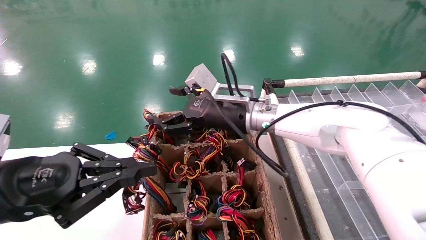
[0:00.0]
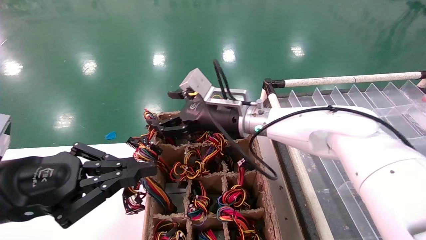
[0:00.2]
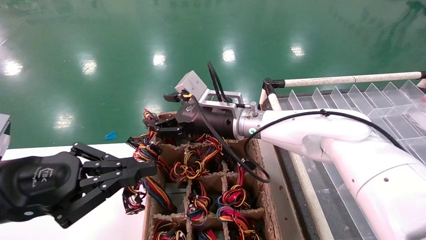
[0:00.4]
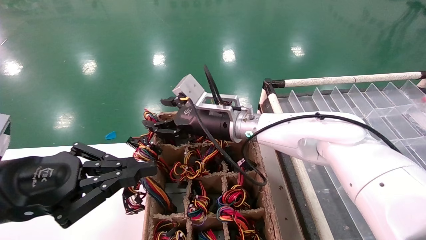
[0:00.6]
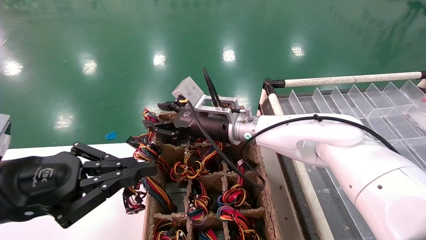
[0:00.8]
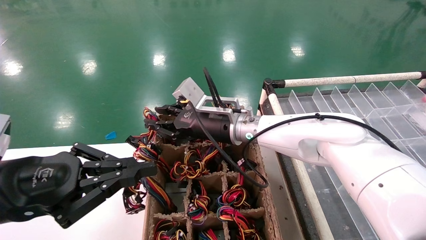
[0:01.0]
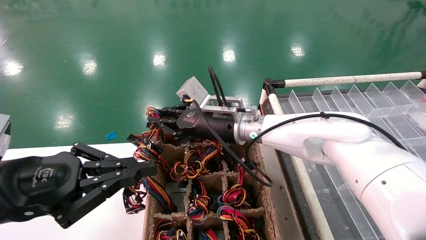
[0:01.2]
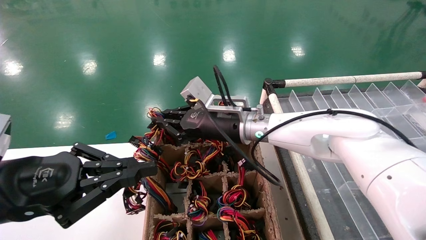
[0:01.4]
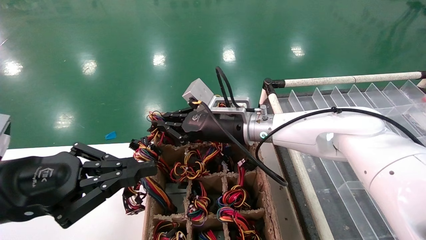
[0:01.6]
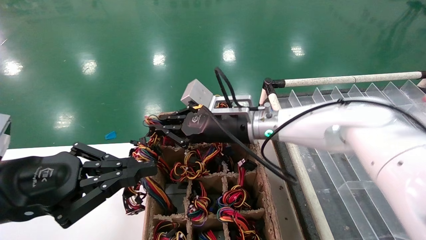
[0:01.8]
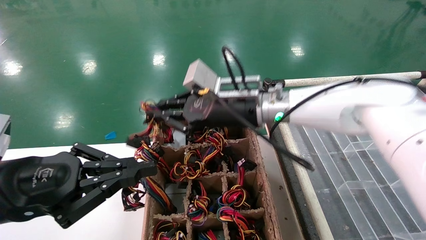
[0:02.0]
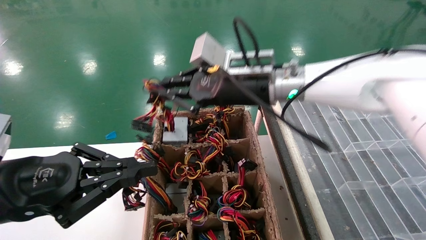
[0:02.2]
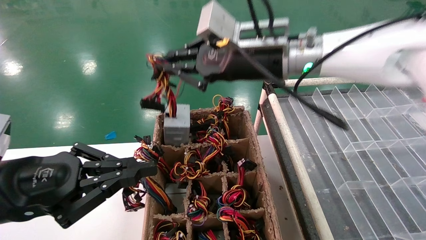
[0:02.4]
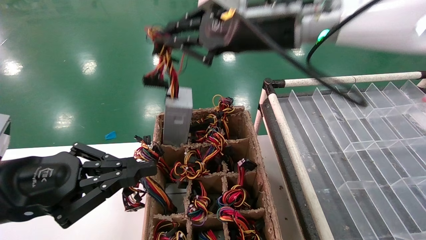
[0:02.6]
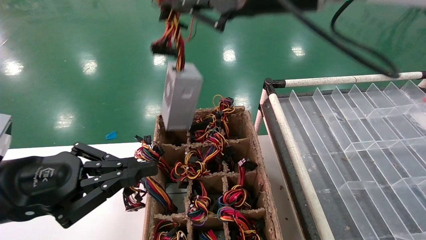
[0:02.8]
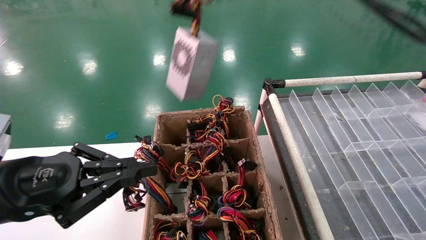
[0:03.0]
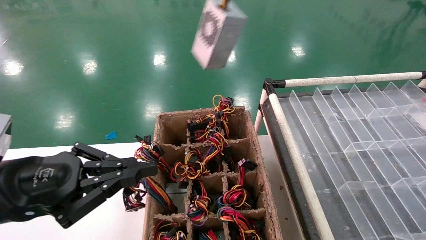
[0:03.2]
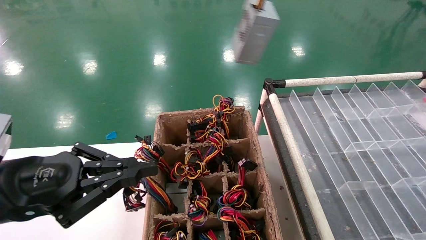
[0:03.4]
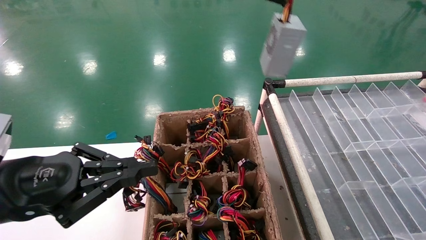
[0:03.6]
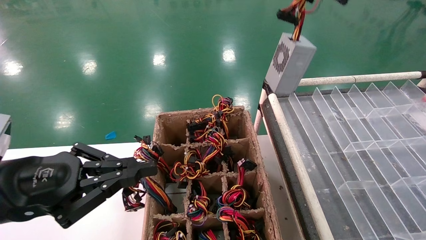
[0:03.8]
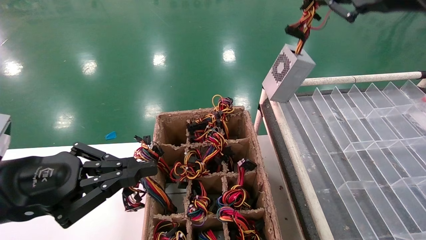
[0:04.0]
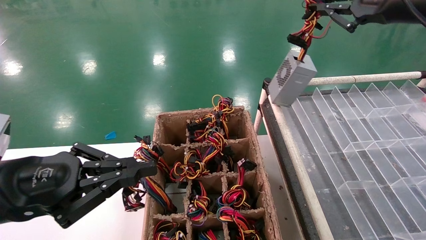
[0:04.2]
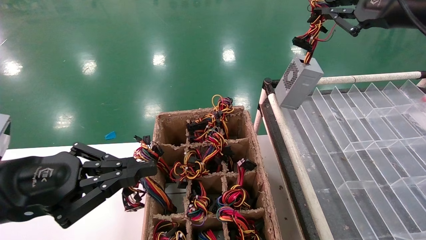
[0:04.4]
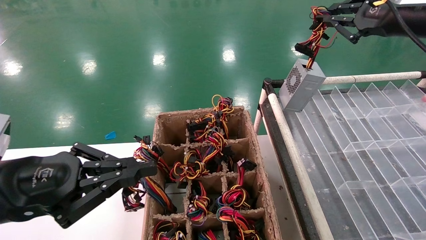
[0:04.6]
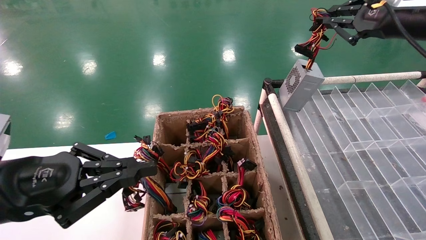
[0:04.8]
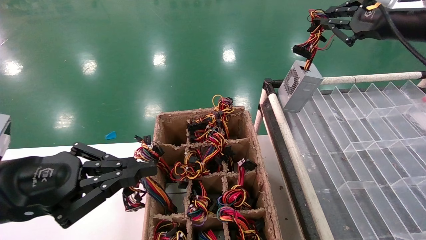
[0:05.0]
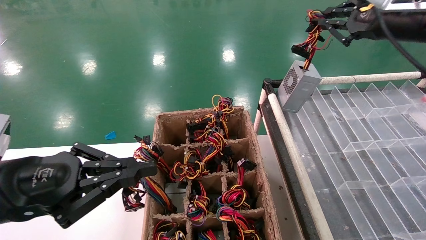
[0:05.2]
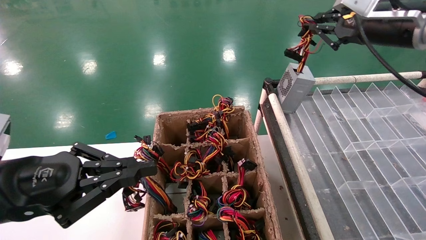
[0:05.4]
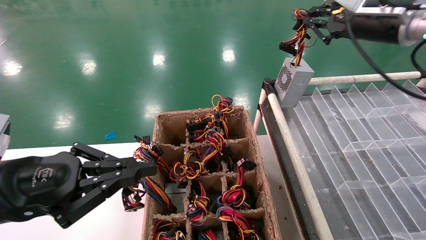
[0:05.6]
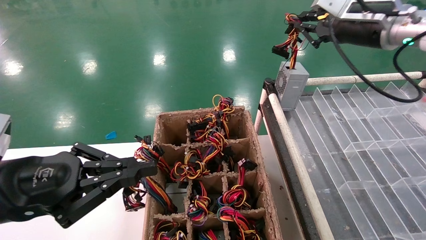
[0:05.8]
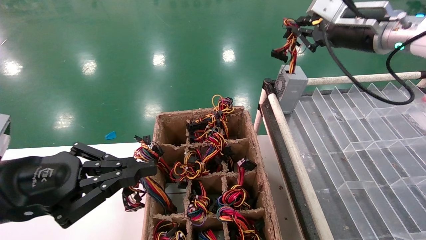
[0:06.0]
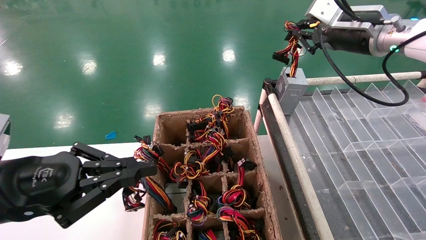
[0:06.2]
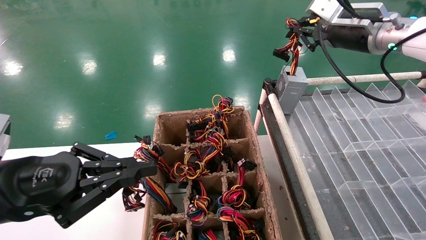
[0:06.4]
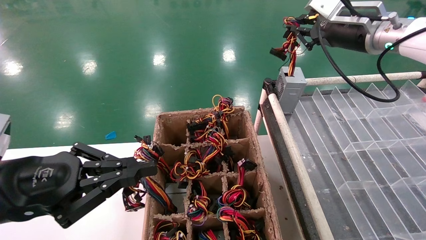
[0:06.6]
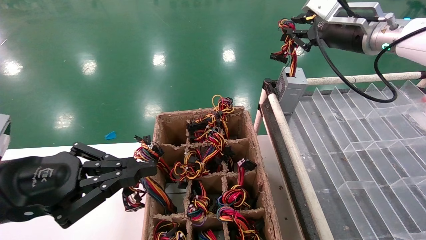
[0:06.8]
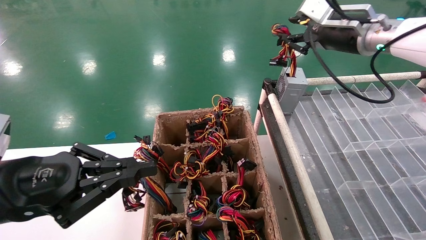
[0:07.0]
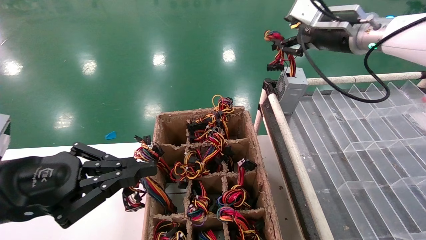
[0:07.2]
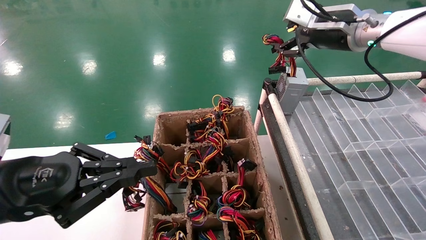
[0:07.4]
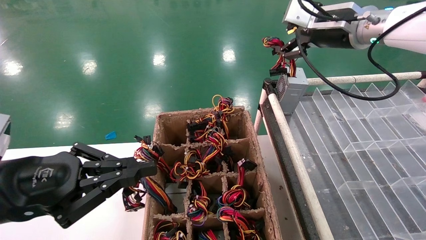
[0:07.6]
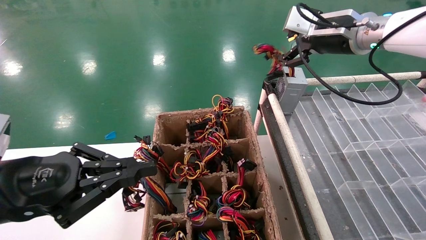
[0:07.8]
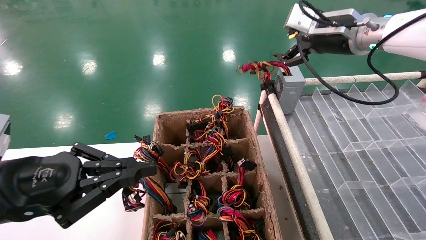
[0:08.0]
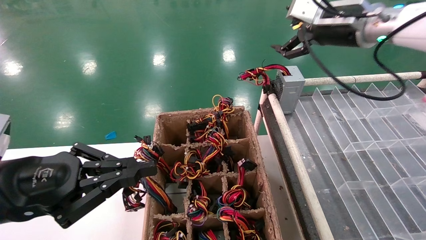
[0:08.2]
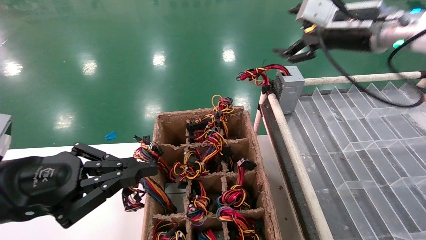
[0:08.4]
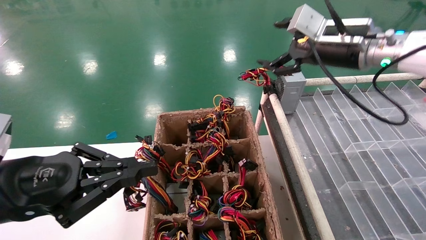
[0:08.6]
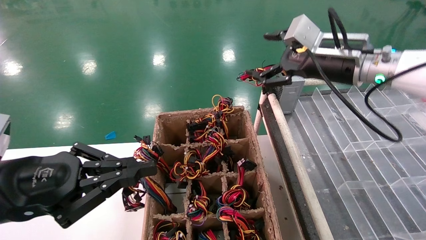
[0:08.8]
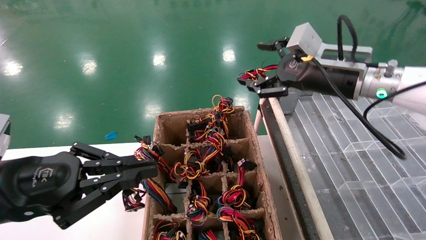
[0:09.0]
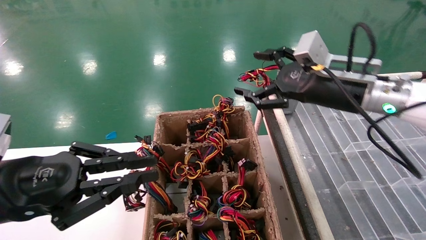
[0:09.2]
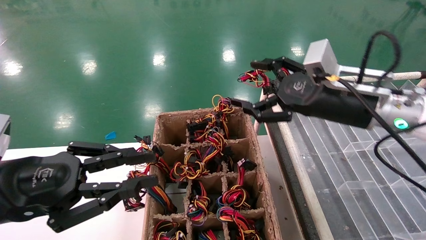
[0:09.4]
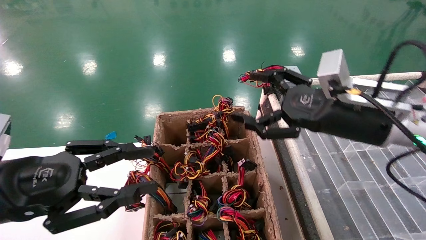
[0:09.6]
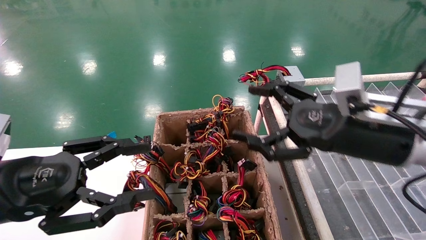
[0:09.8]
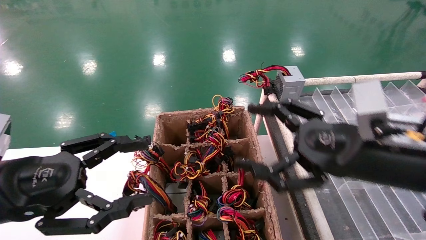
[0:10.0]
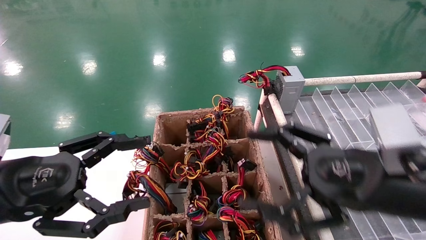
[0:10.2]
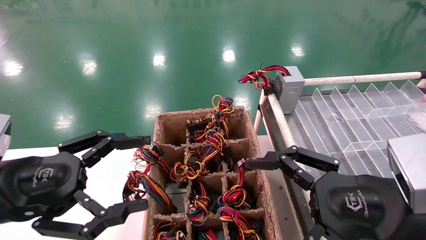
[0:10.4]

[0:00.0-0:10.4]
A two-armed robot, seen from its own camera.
Step, 0:00.0 to 0:01.4: Grab the main unit power supply from the containment box.
Step, 0:01.6 to 0:08.0: Place the main unit power supply in the designated area.
0:00.0 to 0:01.4: The right gripper closes its fingers.
0:01.4 to 0:03.0: The right gripper travels upward by roughly 30 cm.
0:03.0 to 0:04.4: The right gripper goes roughly 20 cm to the right.
0:04.4 to 0:06.0: The right gripper moves forward, approximately 5 cm.
0:06.0 to 0:07.4: The right gripper opens up.
0:07.4 to 0:09.0: The right gripper moves downward, some 10 cm, and opens.
0:09.0 to 0:10.4: The left gripper opens its fingers. Meanwhile the right gripper travels backward and downward by about 20 cm.

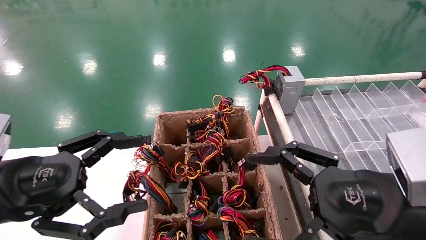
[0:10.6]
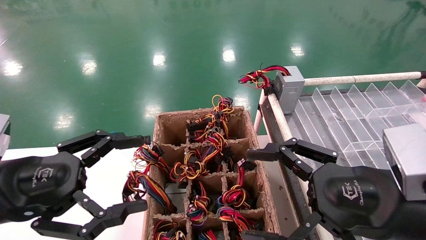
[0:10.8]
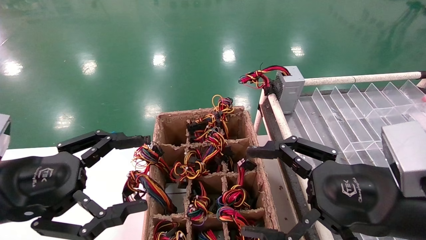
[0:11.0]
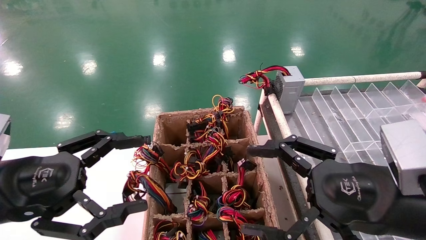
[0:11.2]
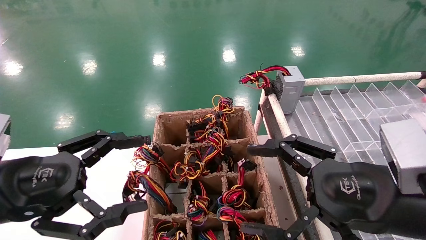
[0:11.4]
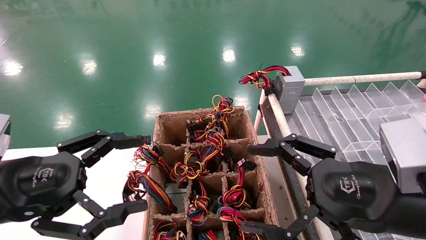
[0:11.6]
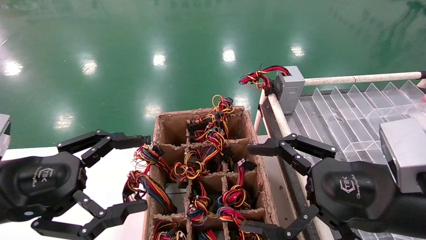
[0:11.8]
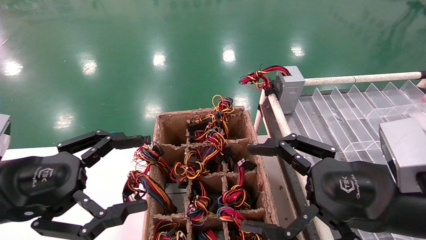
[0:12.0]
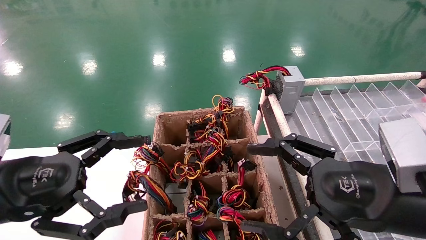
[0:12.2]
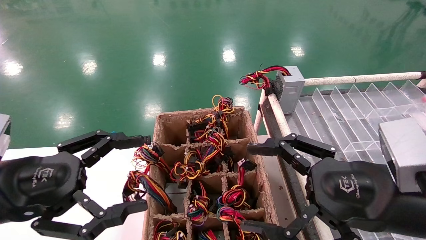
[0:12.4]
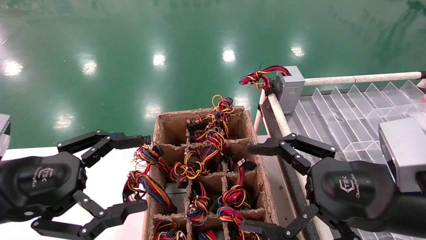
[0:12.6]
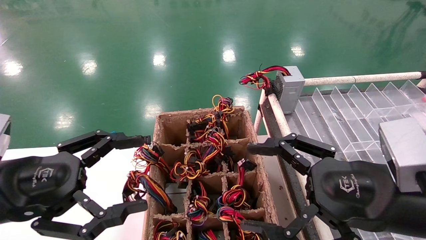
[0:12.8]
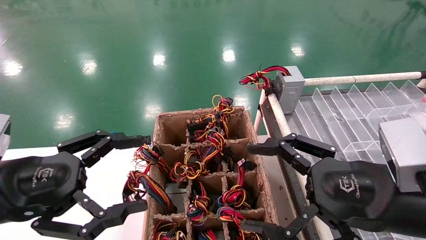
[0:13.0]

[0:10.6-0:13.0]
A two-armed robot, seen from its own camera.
0:10.6 to 0:13.0: Both grippers stay put.

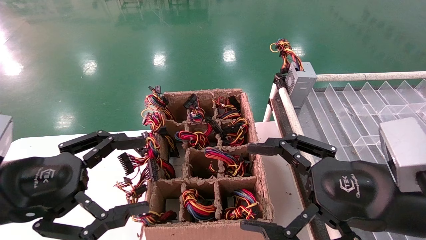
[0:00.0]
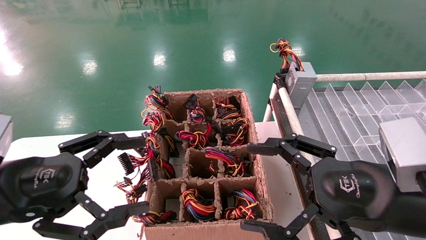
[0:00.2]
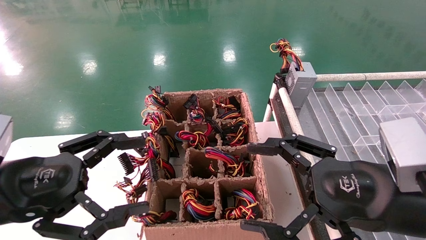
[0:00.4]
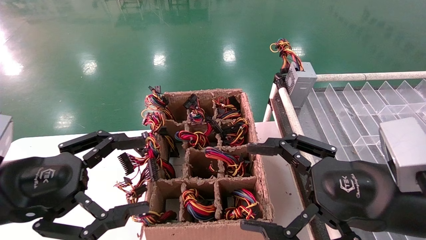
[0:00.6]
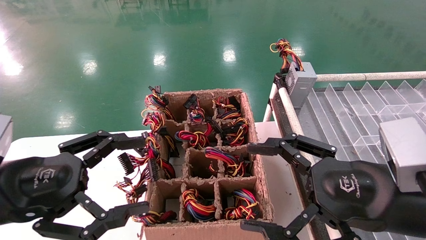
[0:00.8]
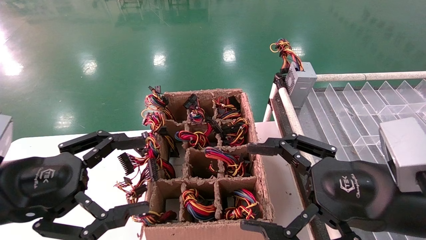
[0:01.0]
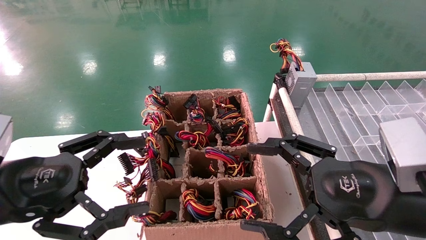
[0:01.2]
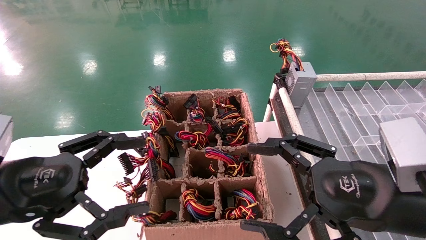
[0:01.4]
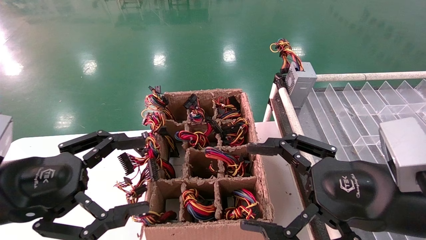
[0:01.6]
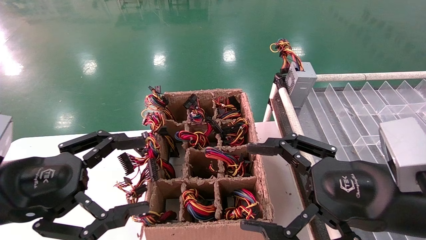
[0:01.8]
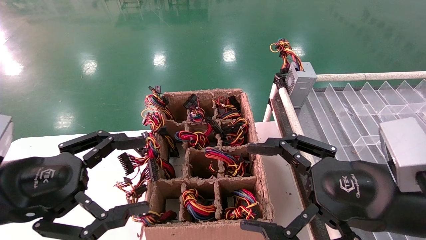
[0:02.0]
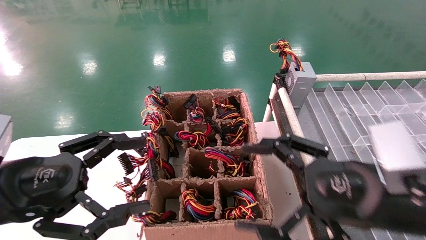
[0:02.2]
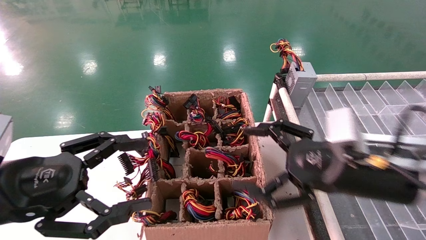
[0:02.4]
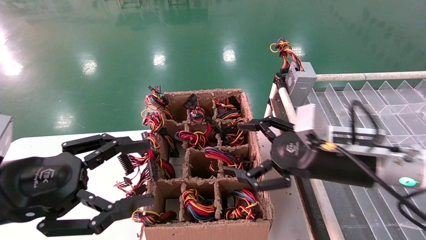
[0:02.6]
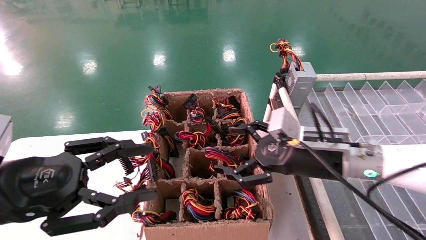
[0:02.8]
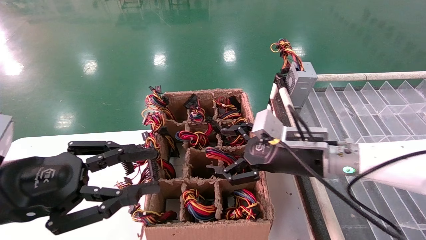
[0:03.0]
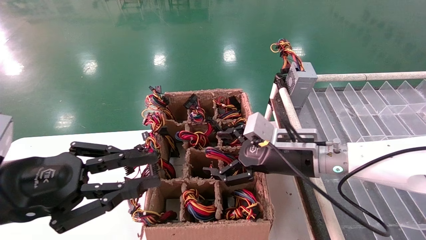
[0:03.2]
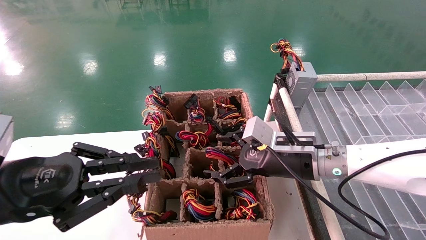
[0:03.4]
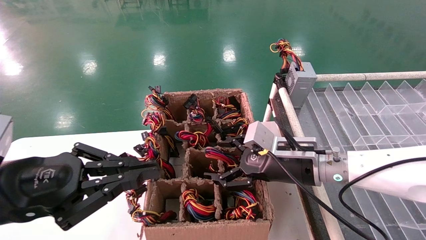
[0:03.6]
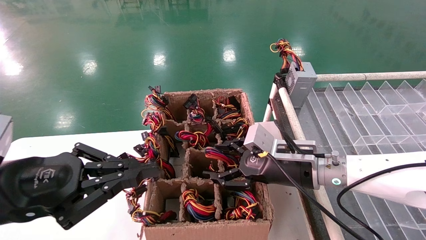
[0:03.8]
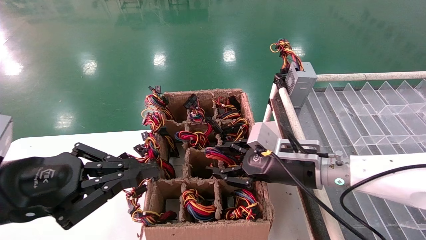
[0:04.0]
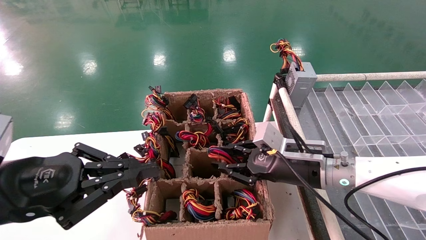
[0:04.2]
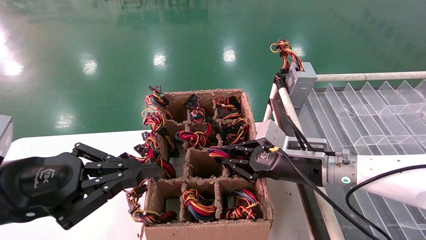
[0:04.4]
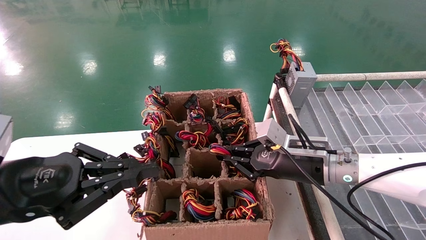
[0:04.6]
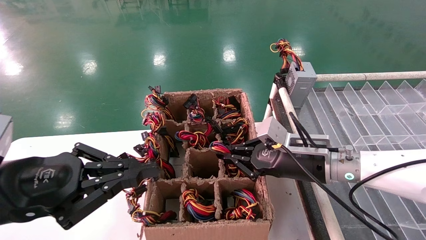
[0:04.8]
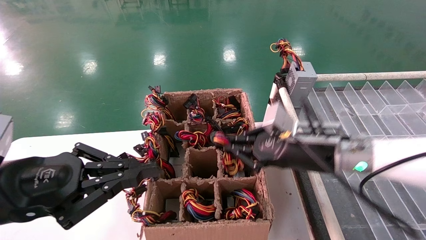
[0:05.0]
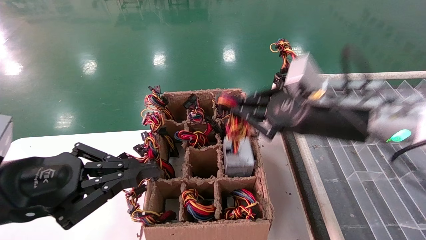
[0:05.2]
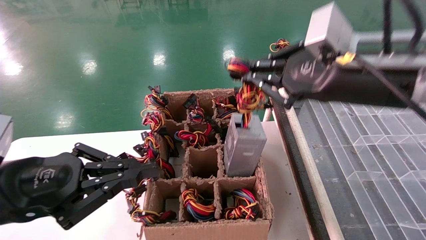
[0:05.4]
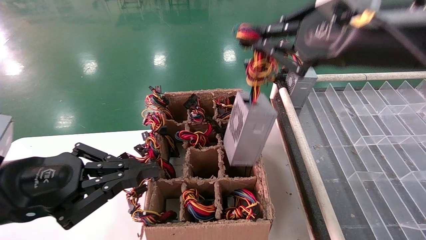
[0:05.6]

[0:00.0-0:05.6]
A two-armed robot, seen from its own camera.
Step, 0:02.4 to 0:04.4: Grab the main unit power supply from the containment box.
0:00.0 to 0:01.4: The two grippers keep their place.
0:01.4 to 0:02.8: The right gripper heads forward, covering approximately 15 cm.
0:02.8 to 0:04.2: The right gripper ends up about 5 cm from where it was, and closes. The left gripper closes up.
0:04.2 to 0:05.6: The right gripper is displaced upward and backward by about 25 cm, and closes up.
